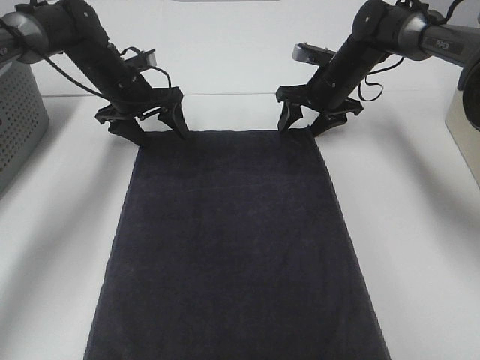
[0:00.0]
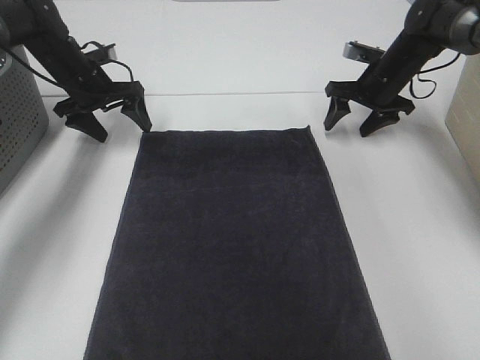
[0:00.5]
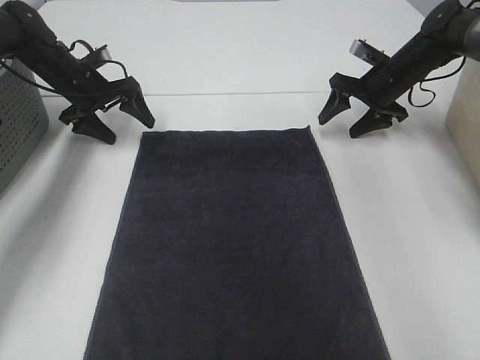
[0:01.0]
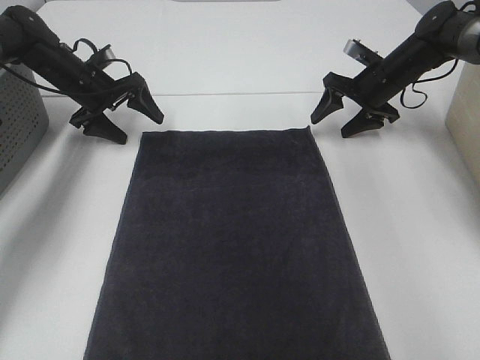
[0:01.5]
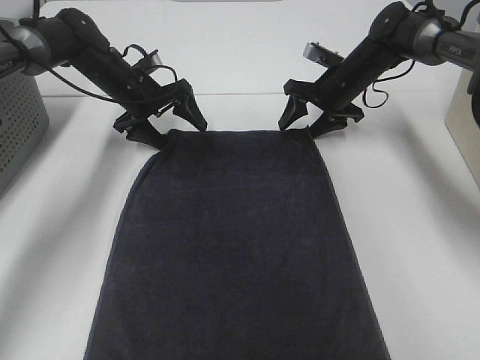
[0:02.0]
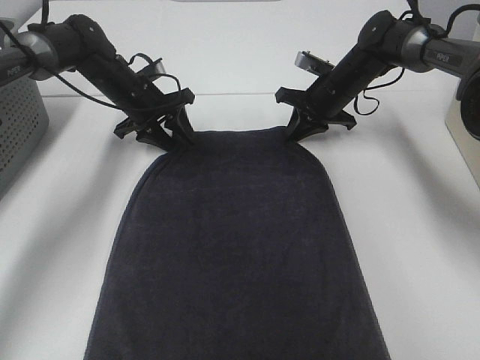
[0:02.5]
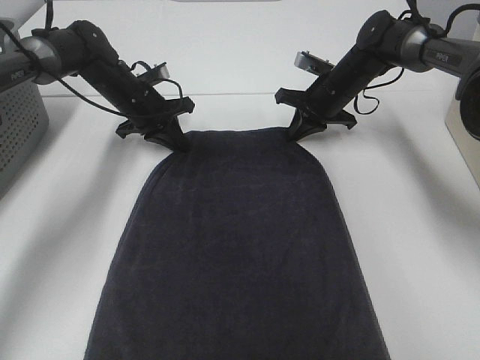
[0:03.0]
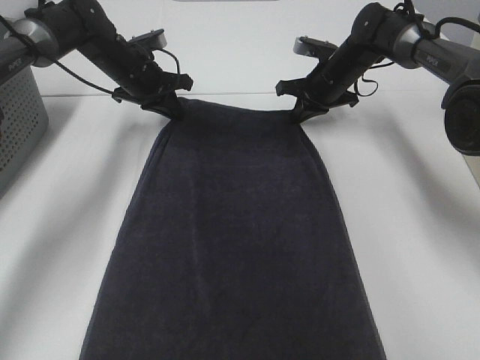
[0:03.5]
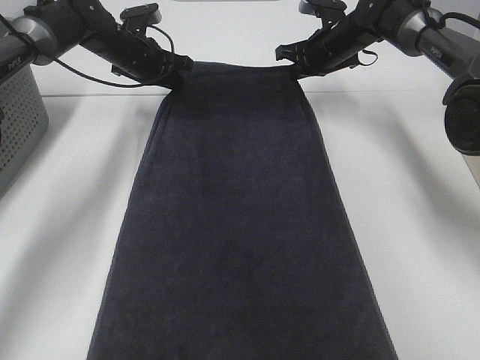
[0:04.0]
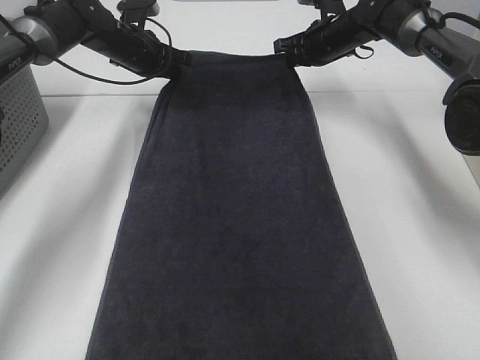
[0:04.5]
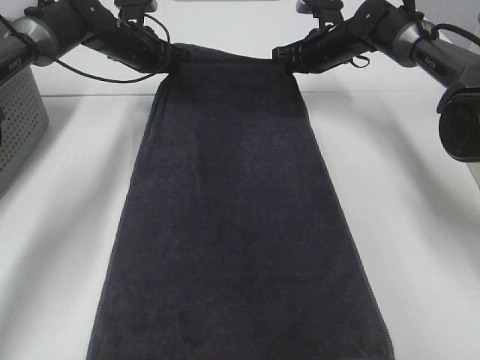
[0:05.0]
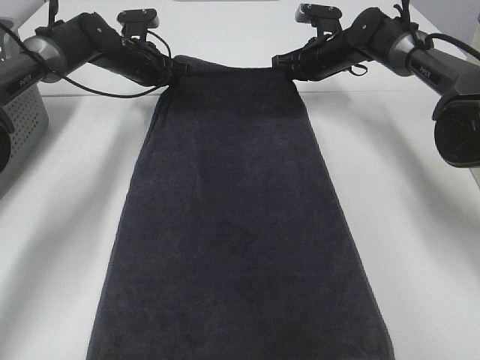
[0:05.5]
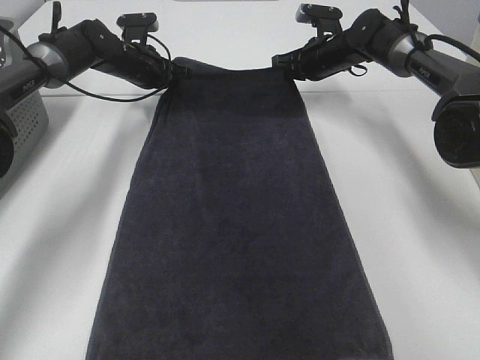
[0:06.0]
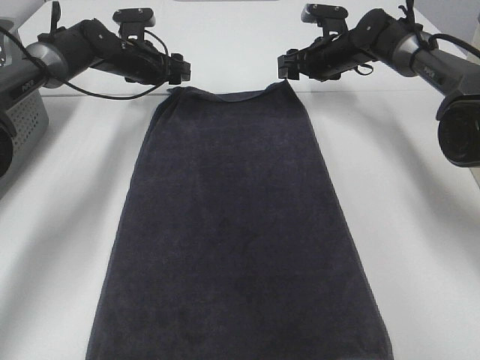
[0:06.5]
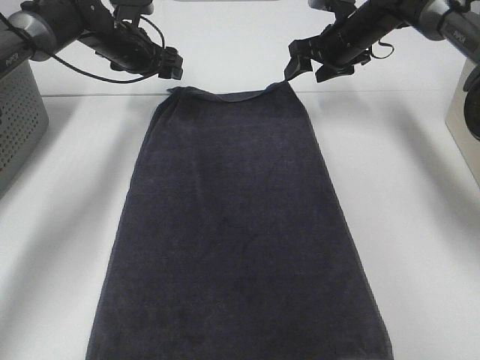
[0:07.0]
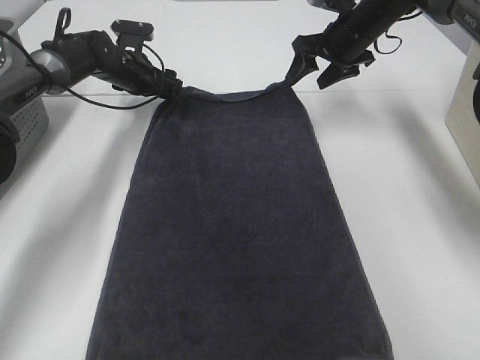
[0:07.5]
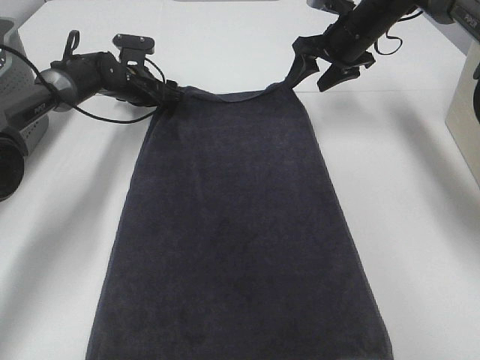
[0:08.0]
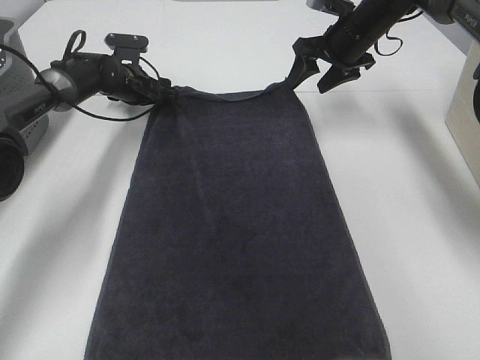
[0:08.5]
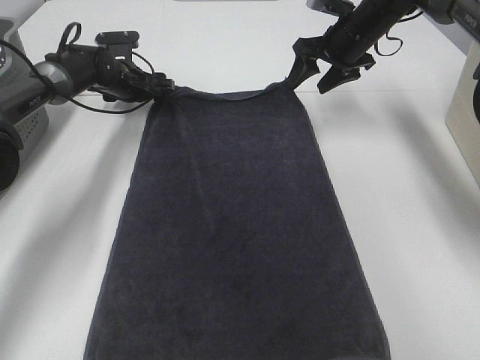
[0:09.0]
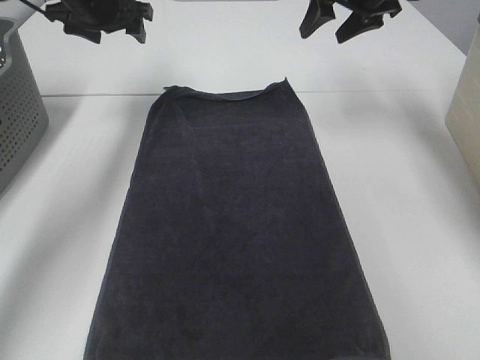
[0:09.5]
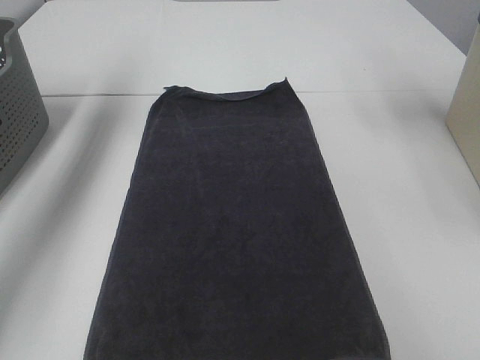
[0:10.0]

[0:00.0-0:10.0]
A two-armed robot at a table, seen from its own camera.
Task of the whole recording: Remove the towel and place it.
0:00.0 to 0:02.0: The right gripper travels to the right and back again, some 10 cm each way. The left gripper travels to the left and back again, some 10 cm each way.
0:02.0 to 0:04.0: The right gripper travels upward and forward by some 10 cm, and closes its fingers, while the left gripper changes place by roughly 5 cm, and closes up.
0:04.0 to 0:06.0: The grippers stay close to where they were, moving slightly.
0:06.0 to 0:08.0: The right gripper heads upward, covering roughly 5 cm, and opens, while the left gripper opens.
0:08.0 to 0:10.0: The right gripper shifts approximately 20 cm upward, while the left gripper travels upward by roughly 30 cm.

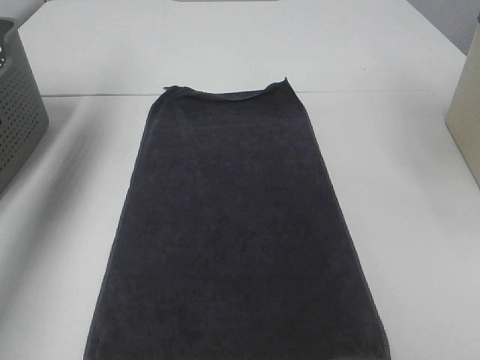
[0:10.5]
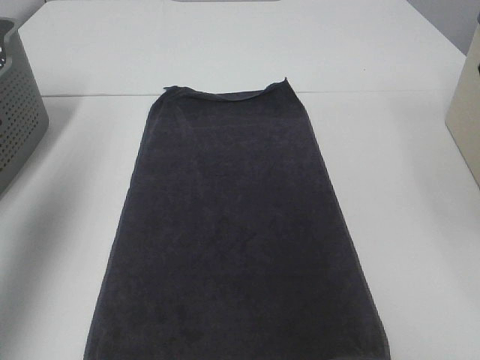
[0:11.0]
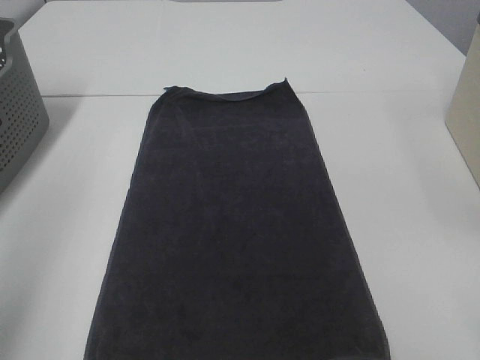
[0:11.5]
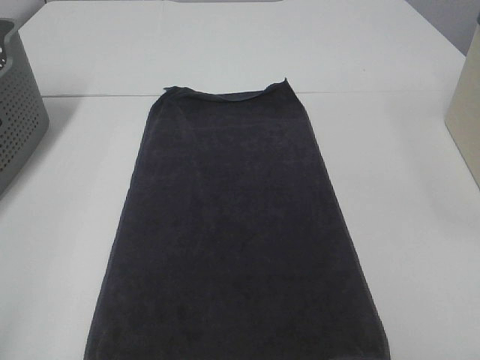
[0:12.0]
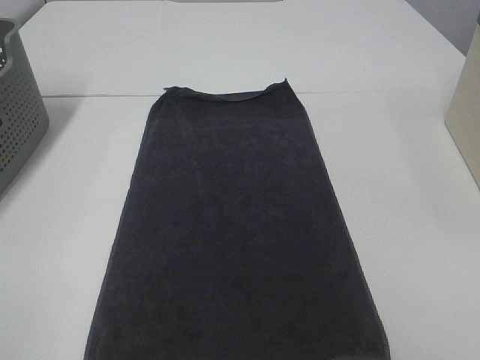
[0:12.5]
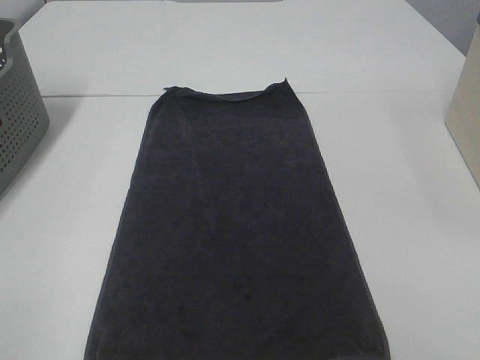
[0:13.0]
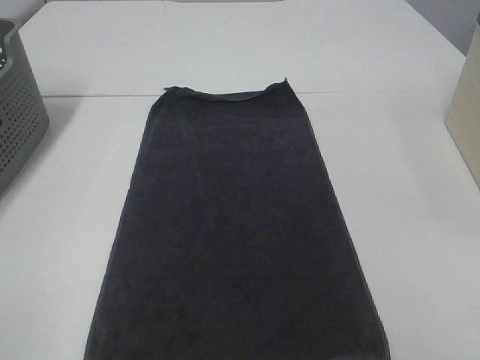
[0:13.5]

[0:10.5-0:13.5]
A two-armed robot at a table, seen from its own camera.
Task of the whole recording: Remove the towel and place it.
0:10.5 to 0:12.0: The left gripper is displaced backward by some 40 cm.

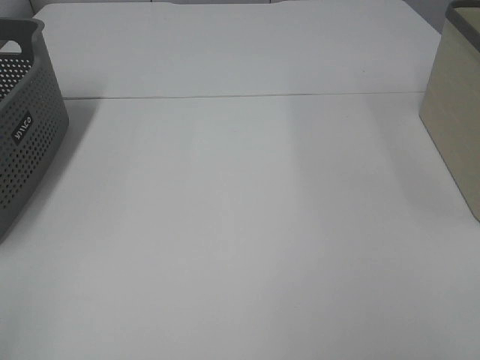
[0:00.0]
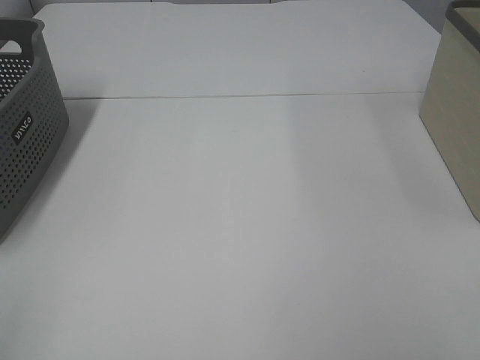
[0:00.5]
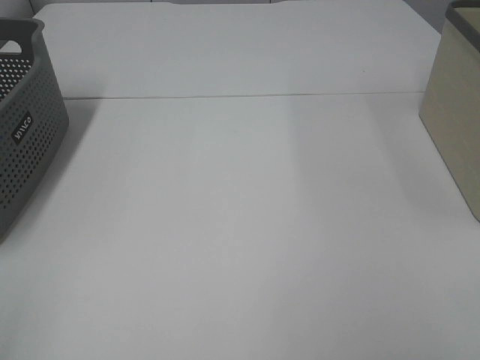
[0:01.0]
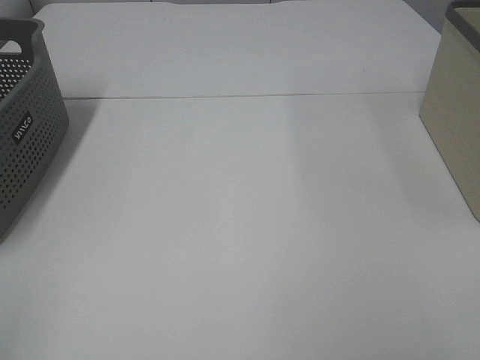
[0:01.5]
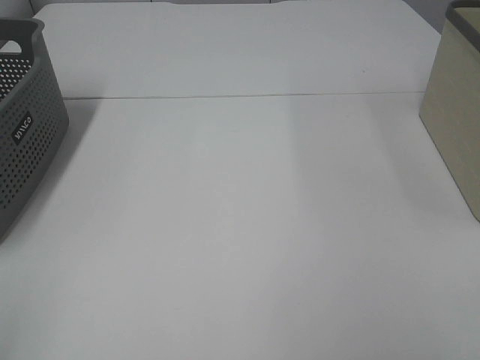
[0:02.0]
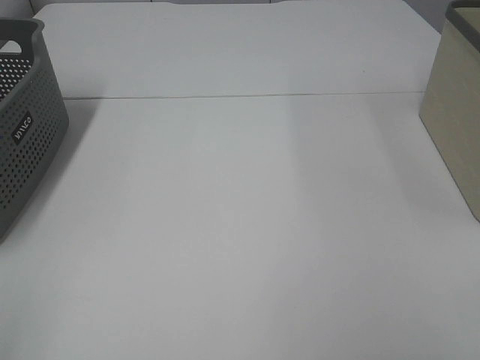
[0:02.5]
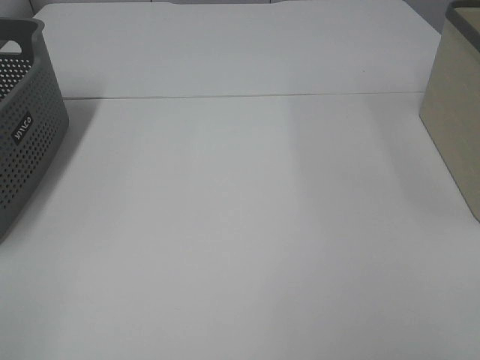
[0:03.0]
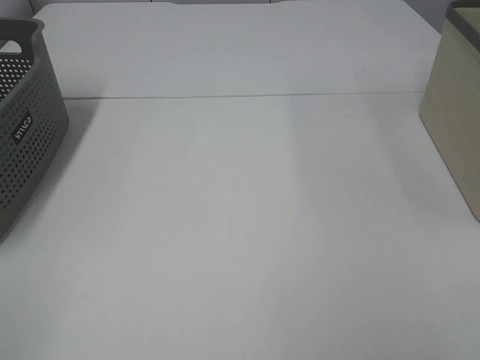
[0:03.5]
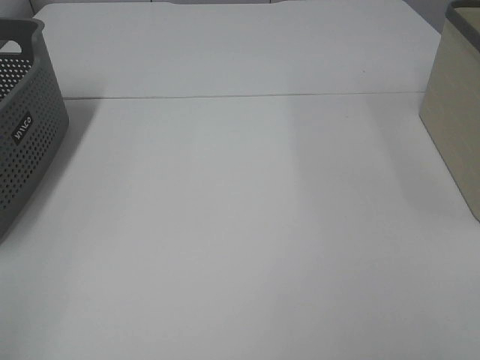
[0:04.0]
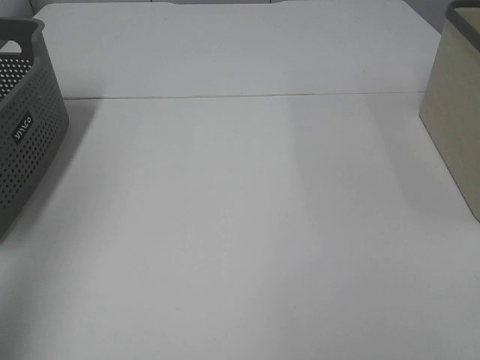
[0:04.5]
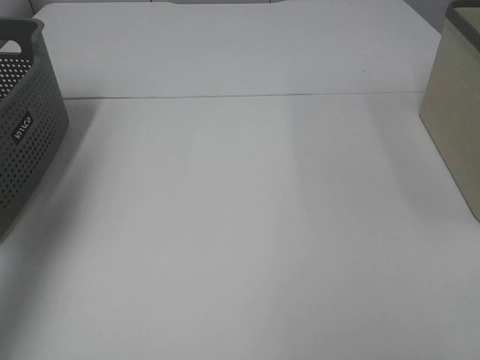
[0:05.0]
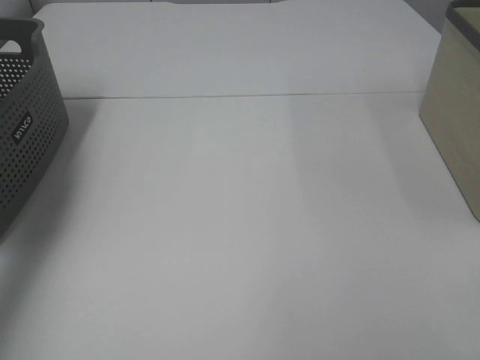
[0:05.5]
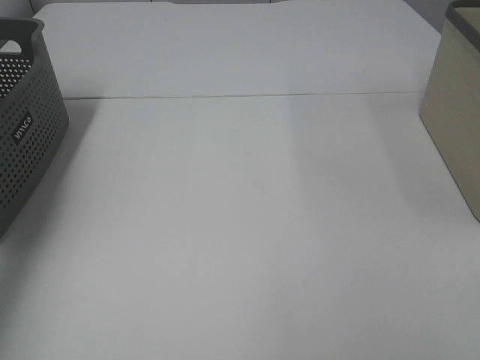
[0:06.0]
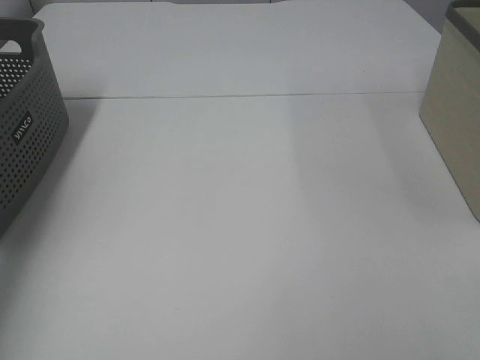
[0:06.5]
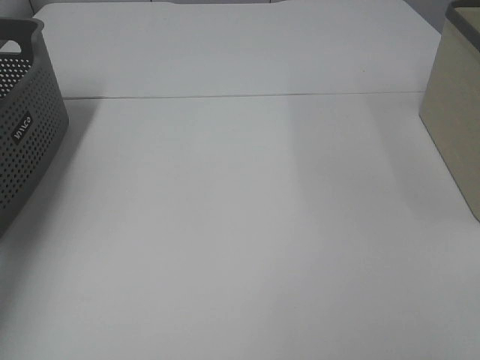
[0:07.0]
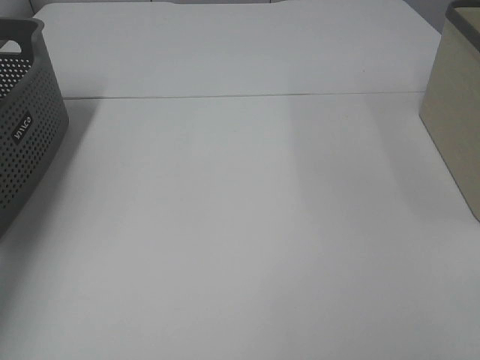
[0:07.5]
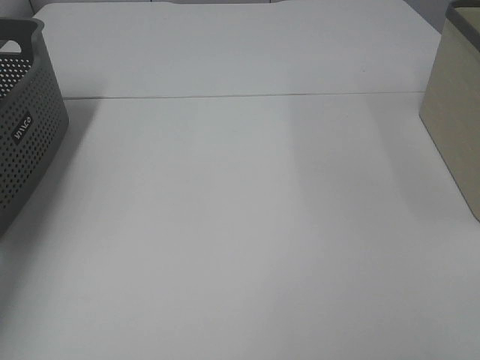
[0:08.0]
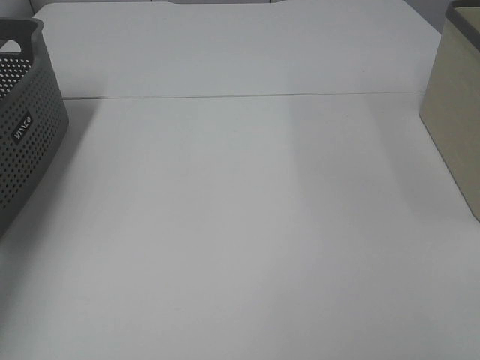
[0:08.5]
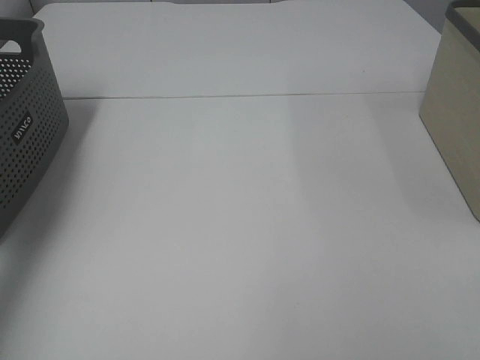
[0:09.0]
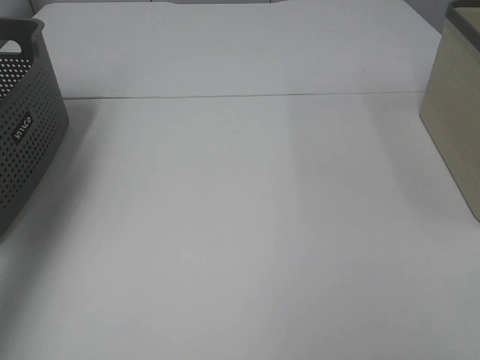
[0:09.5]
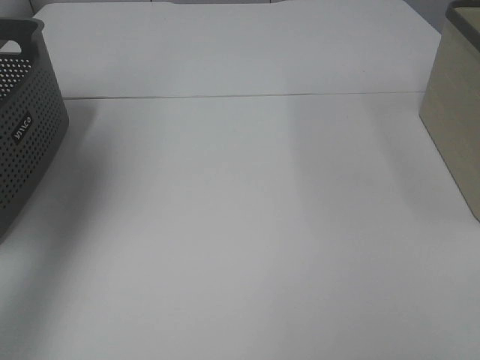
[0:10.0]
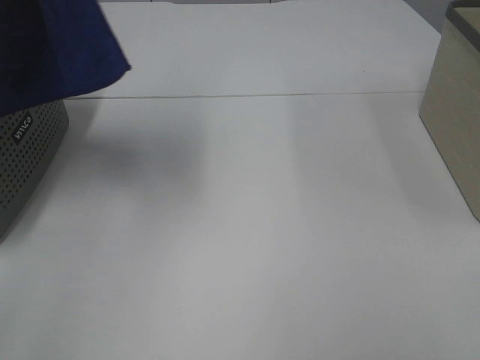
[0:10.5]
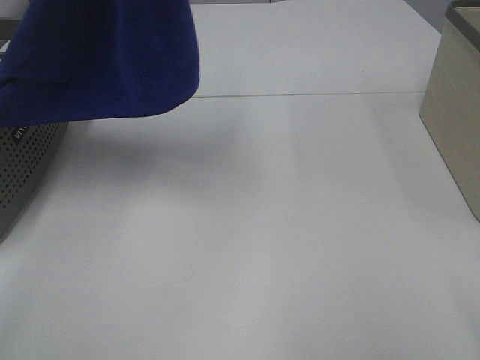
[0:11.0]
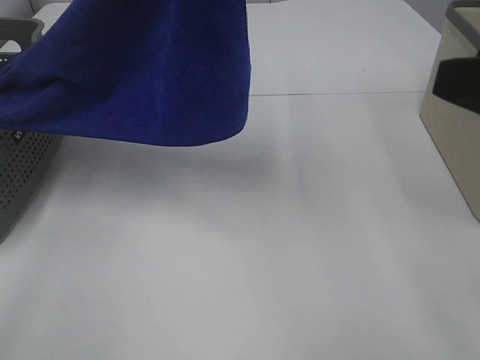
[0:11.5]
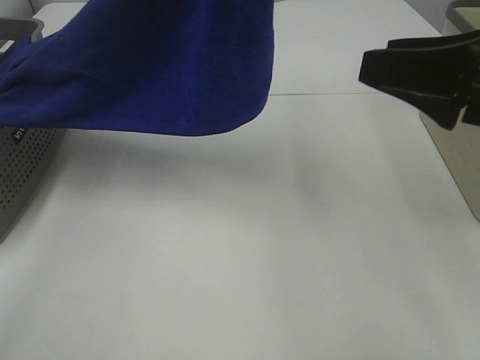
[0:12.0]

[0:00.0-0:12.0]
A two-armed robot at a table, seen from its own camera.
Task of the whole recording: Remove the towel and place it.
0:00.0 to 0:02.0: The two grippers keep their place.
0:04.0 to 0:06.0: The left gripper goes some 35 cm forward.
0:08.0 to 0:10.0: The left gripper heads upward, covering some 35 cm.
0:10.0 to 0:12.0: The right gripper shifts about 20 cm forward. The left gripper is displaced to the right by about 25 cm.
